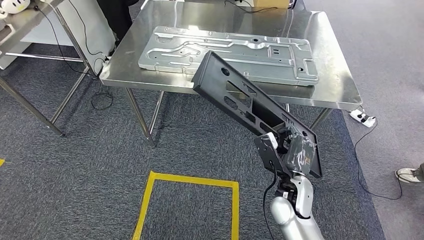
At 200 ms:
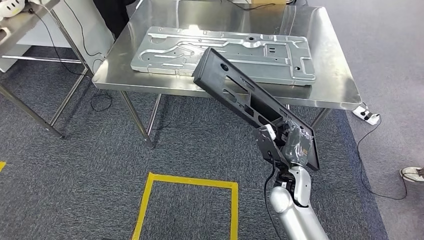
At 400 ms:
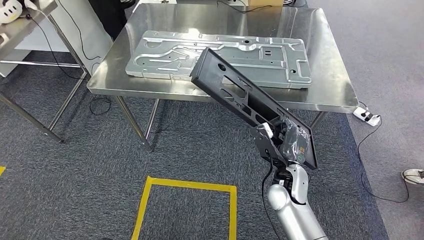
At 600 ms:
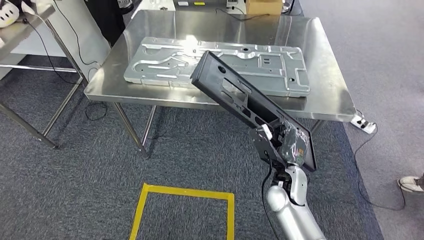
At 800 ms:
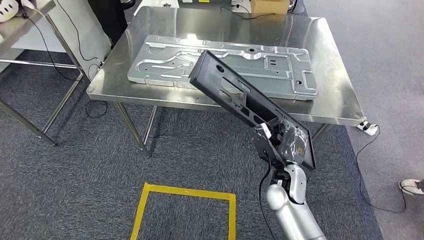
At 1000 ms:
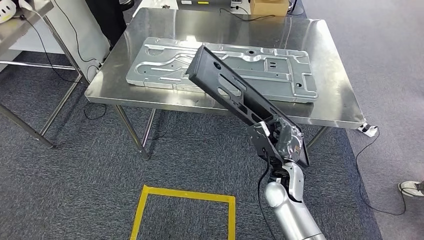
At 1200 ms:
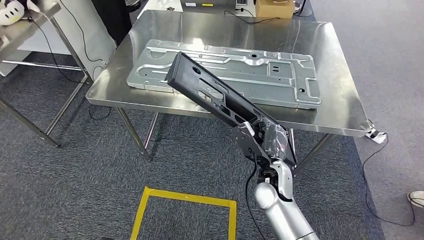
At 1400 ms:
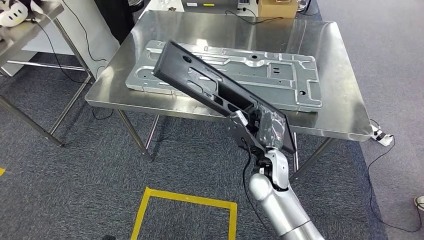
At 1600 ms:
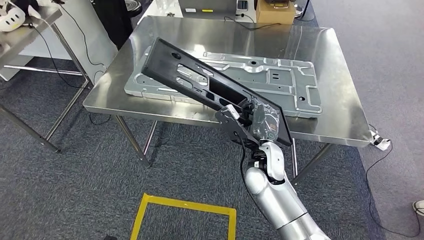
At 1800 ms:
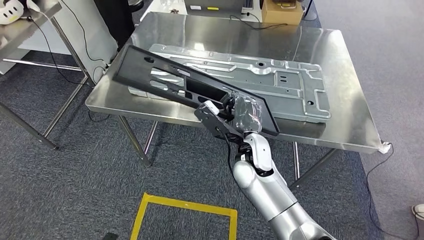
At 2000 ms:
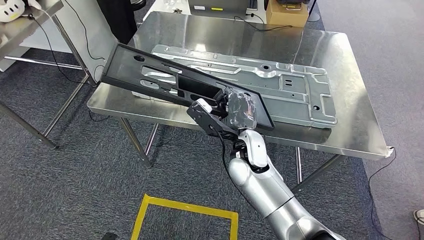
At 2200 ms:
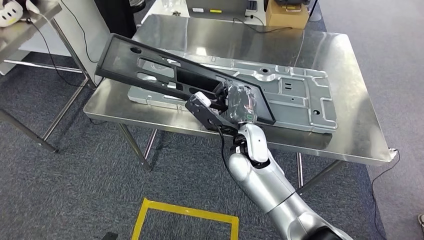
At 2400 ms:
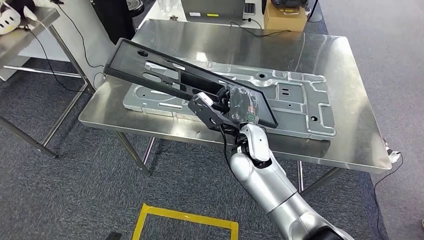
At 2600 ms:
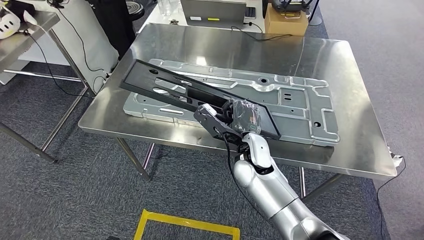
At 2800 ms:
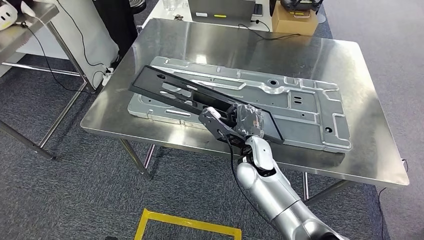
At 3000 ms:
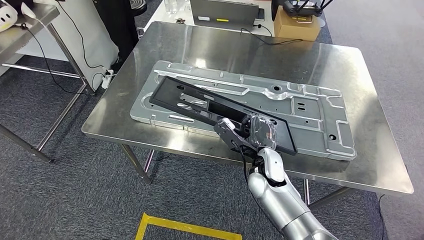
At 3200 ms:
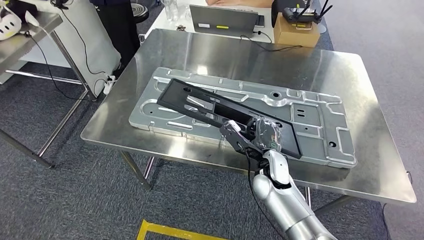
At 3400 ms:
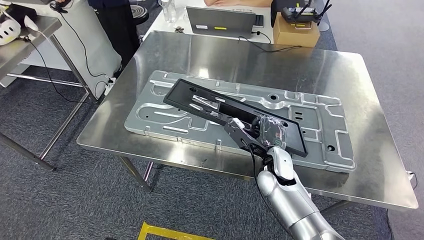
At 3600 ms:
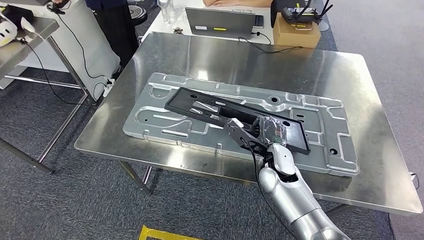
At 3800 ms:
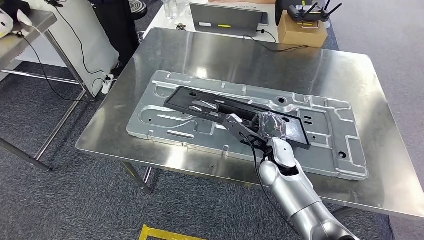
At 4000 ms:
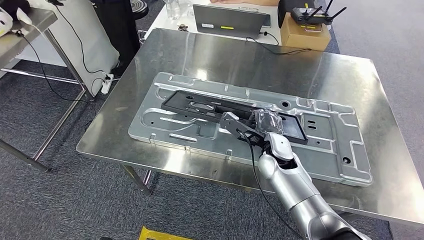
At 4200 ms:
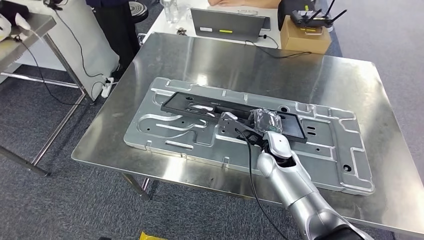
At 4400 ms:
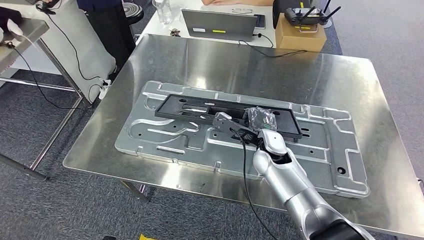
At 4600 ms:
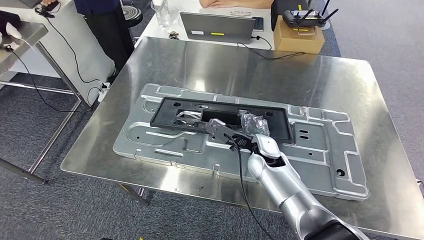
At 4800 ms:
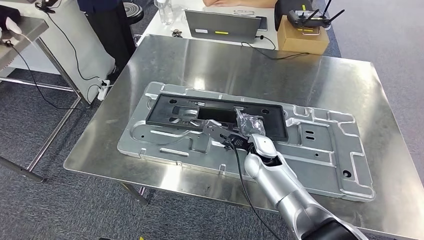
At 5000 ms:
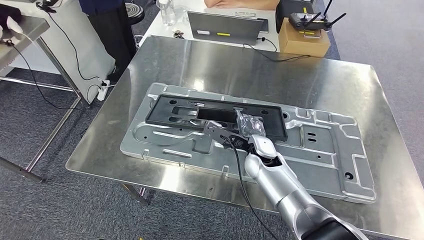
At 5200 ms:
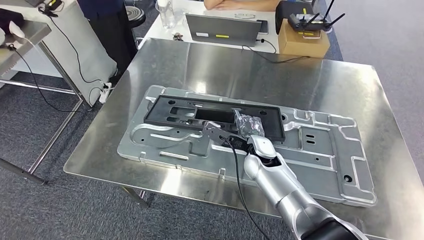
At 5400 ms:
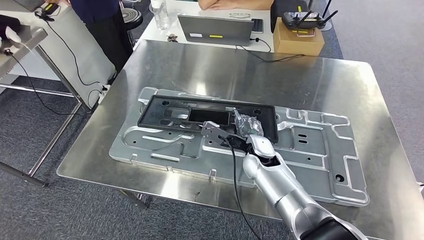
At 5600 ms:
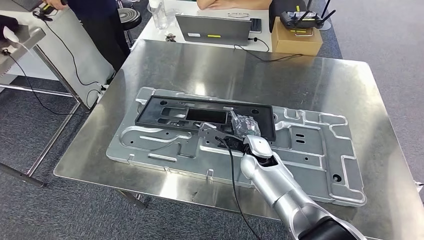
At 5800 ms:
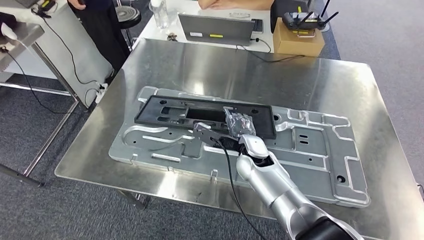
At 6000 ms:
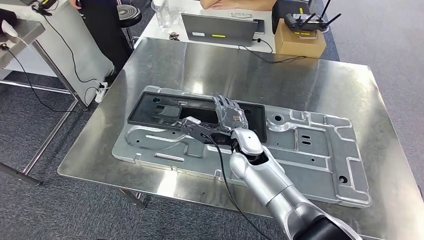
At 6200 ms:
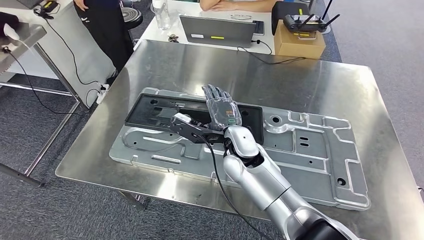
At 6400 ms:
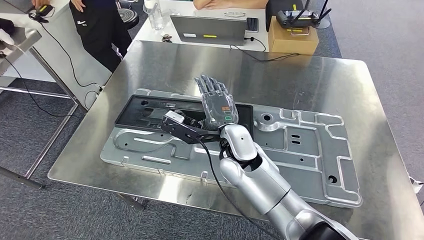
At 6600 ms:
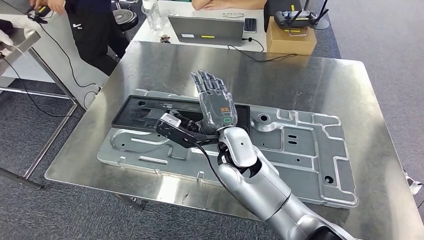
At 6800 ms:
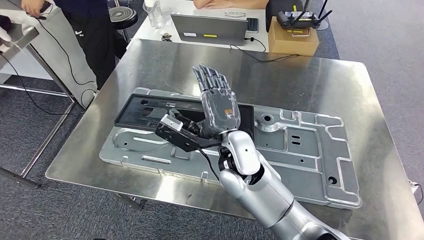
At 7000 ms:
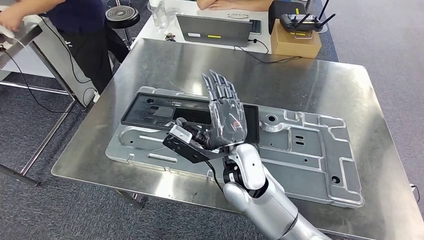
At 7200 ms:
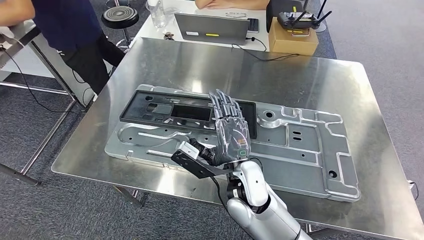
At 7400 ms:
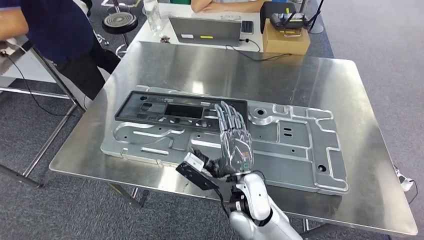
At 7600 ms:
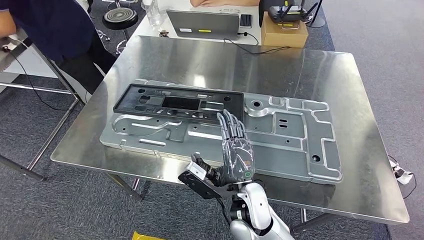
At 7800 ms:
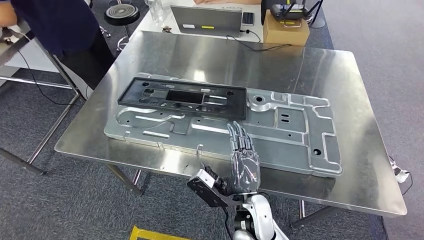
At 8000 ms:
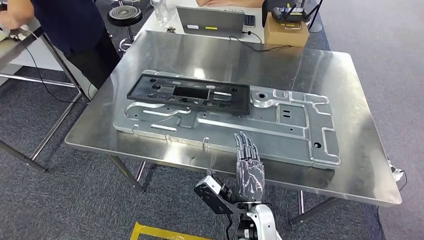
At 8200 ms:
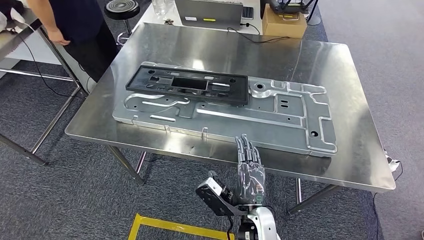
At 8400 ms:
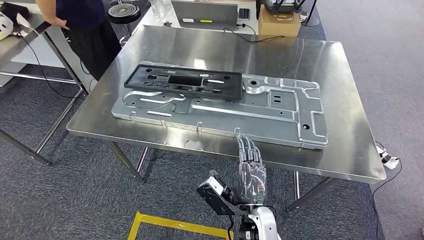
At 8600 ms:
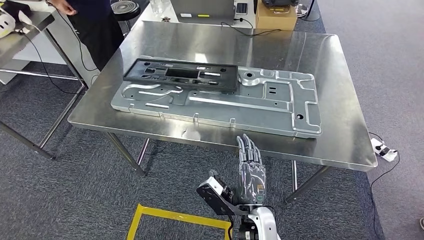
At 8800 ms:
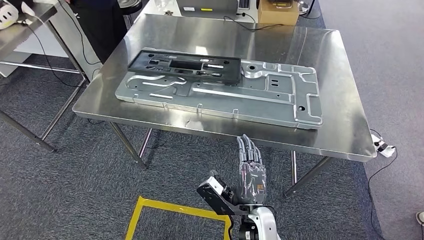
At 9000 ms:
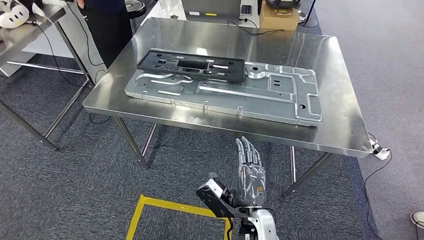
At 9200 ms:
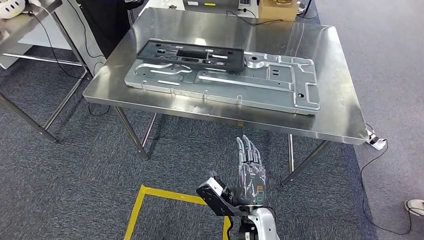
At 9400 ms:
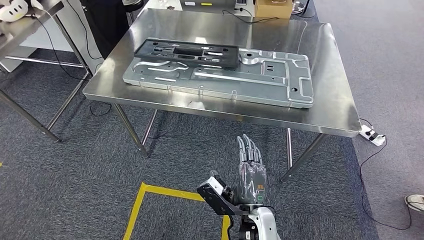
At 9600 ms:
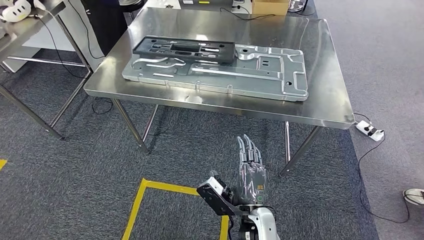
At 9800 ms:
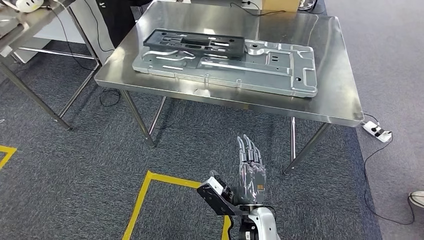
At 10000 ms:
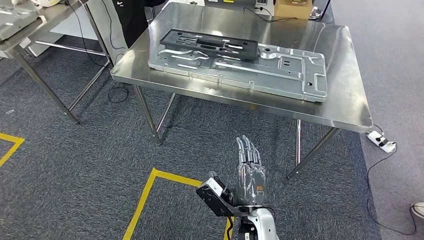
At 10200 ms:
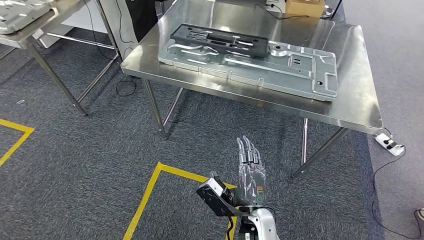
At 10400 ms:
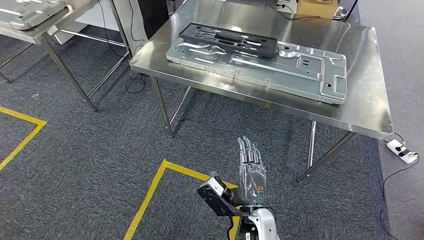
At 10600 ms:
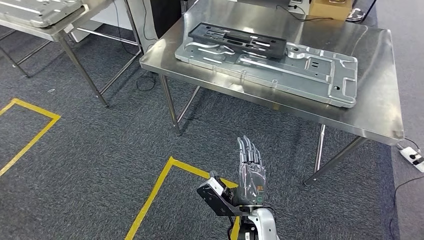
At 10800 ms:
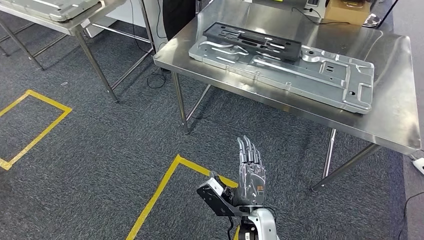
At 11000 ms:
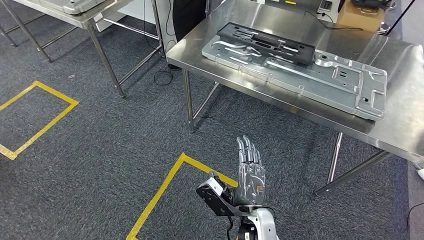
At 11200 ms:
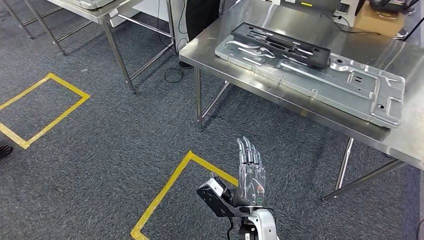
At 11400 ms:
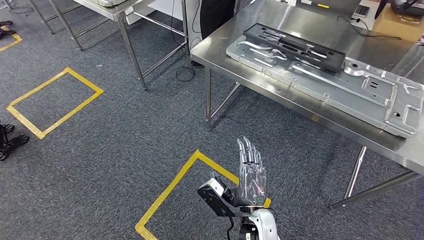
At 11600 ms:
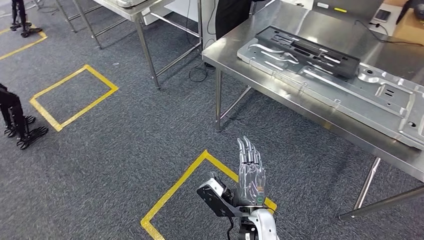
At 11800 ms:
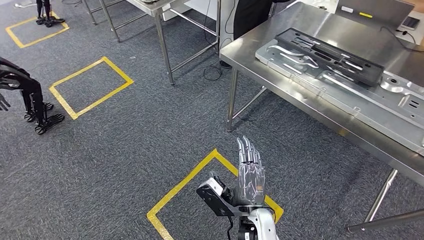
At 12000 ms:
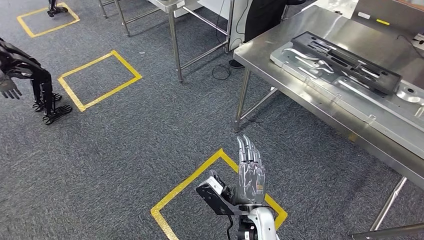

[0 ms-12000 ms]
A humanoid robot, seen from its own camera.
Step, 3000 ms to 8000 ms: Insert the large parts into the corresponding slots on the workbench.

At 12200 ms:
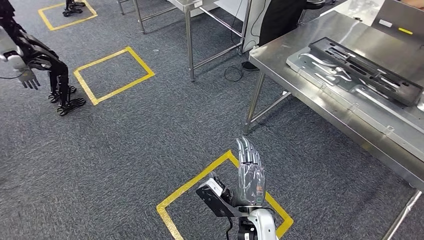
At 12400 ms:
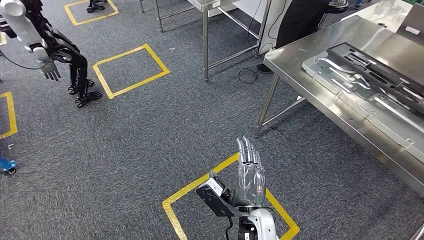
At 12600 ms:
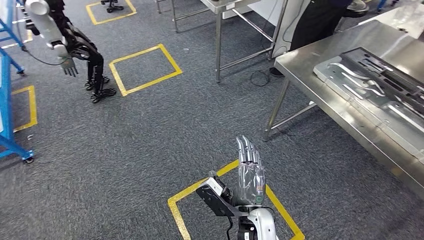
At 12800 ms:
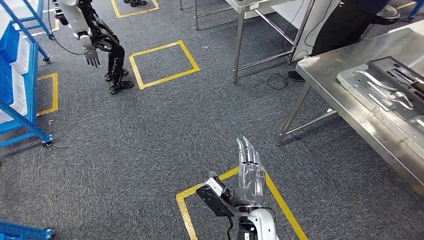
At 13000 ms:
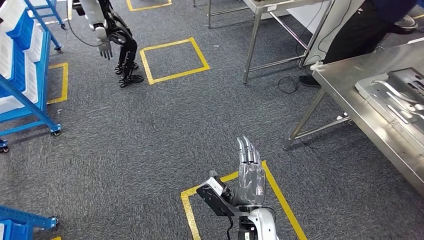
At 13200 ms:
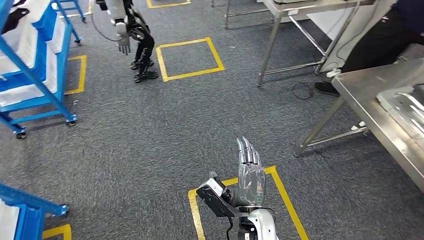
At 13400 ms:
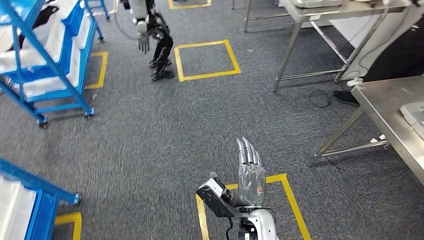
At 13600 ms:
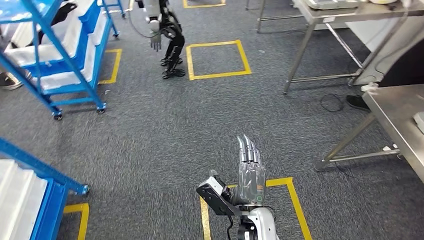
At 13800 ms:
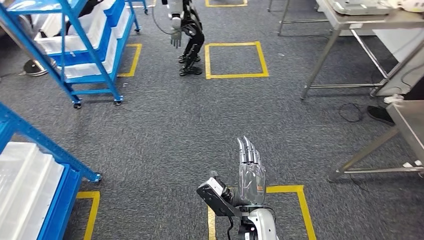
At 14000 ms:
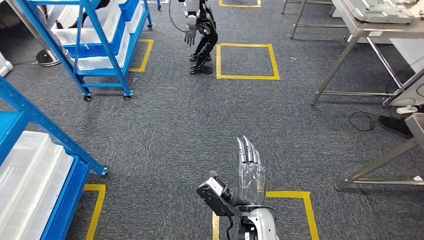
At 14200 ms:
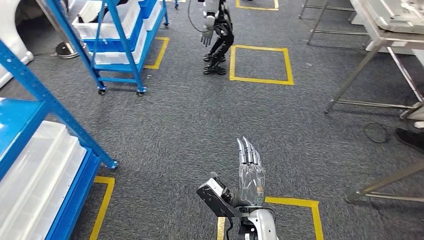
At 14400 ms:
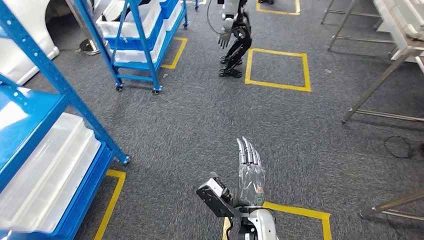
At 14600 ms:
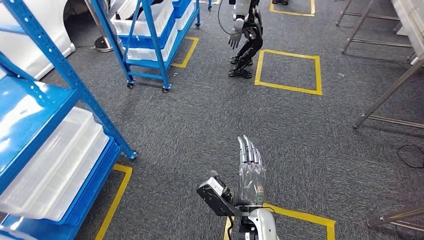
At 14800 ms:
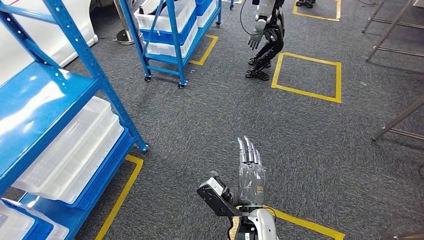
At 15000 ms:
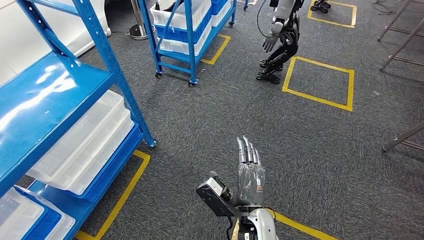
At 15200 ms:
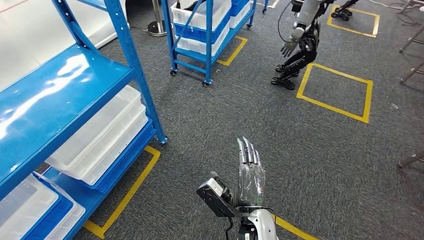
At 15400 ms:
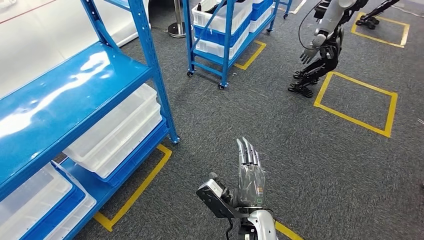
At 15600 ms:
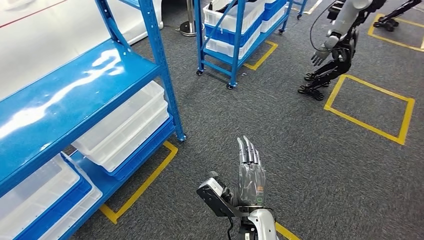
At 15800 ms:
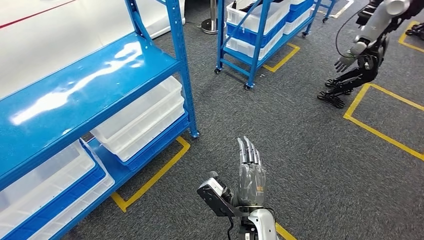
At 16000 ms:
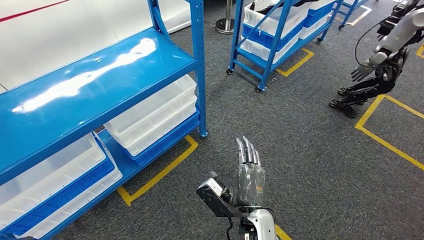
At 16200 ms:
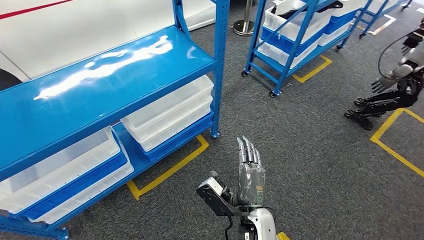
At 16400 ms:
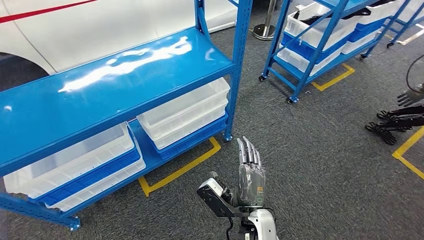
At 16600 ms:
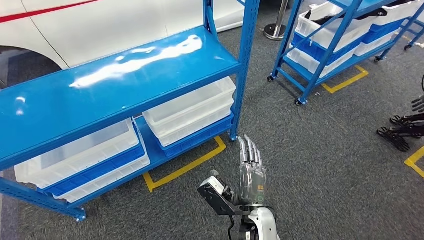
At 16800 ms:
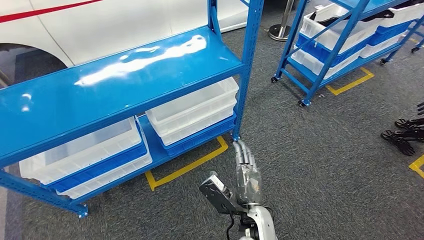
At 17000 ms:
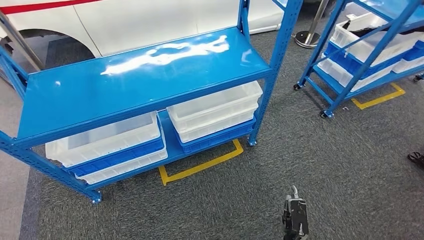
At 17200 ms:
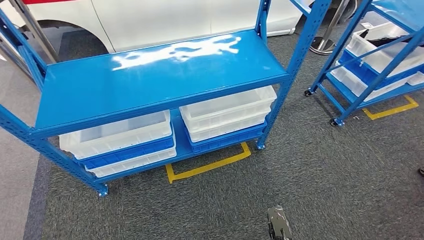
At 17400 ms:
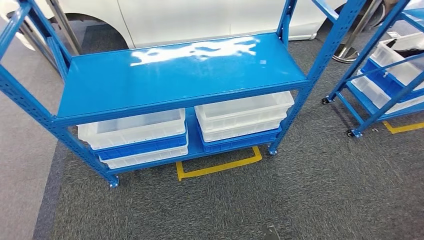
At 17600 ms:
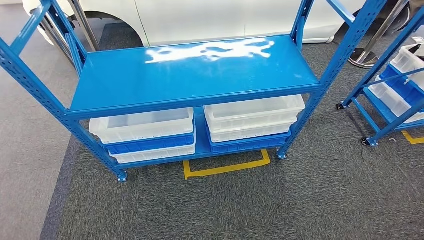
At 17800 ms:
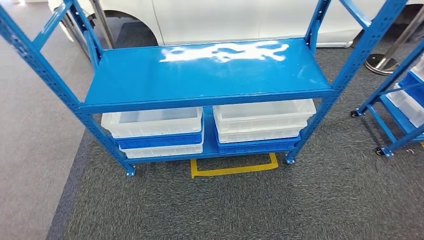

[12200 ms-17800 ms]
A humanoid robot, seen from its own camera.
Step, 12200 ms to 17800 ms: Return to the initial position at the shelf.
